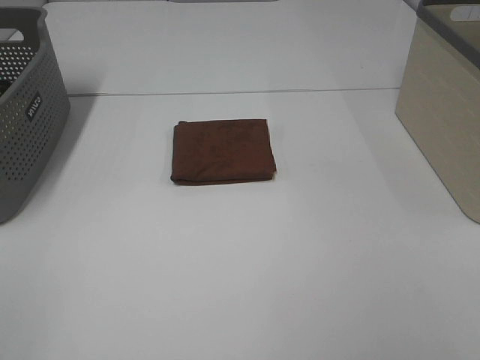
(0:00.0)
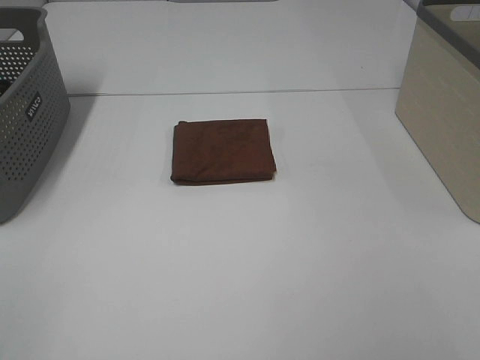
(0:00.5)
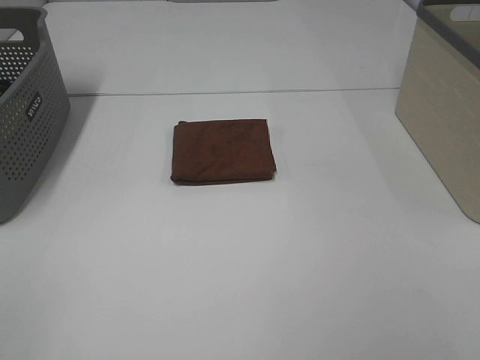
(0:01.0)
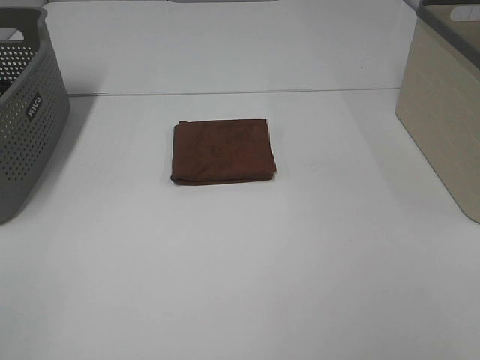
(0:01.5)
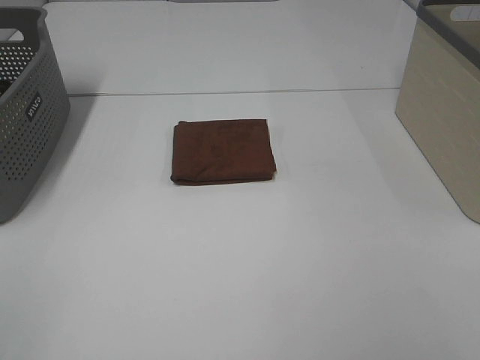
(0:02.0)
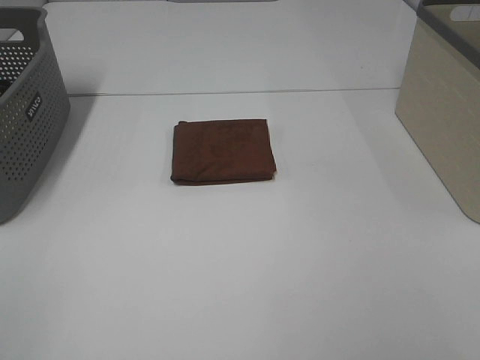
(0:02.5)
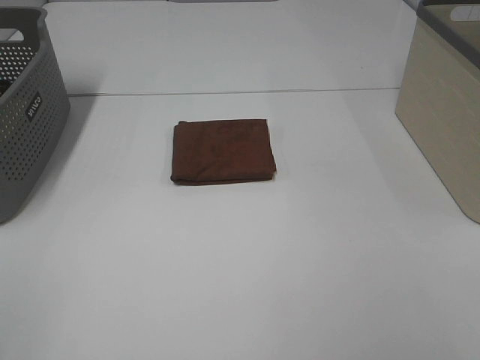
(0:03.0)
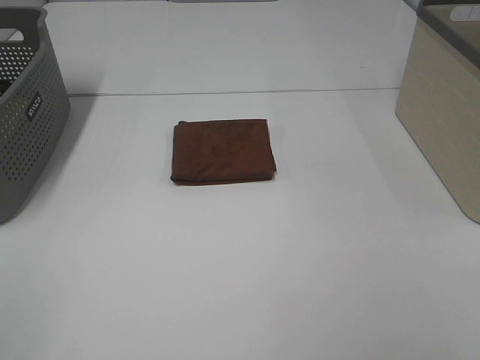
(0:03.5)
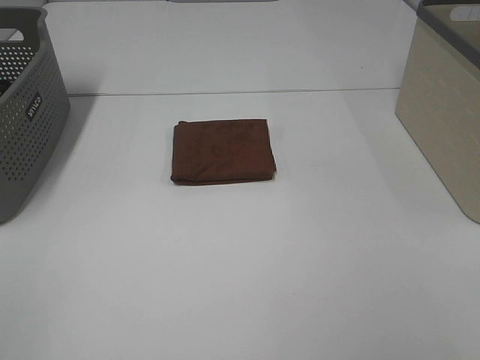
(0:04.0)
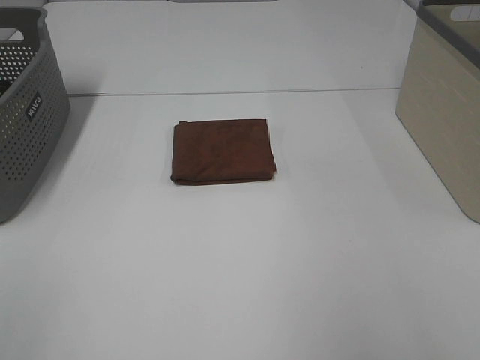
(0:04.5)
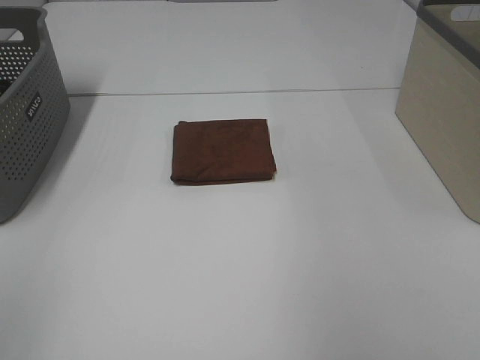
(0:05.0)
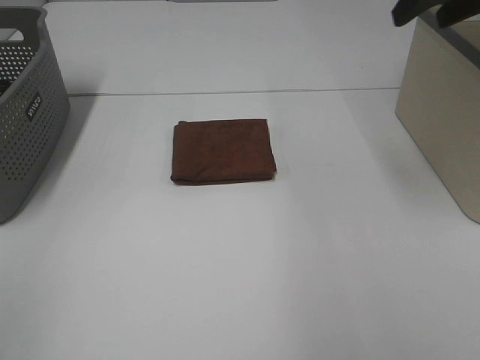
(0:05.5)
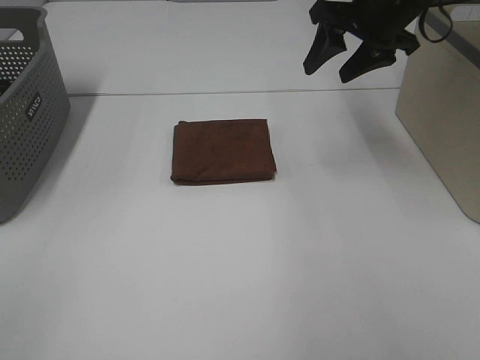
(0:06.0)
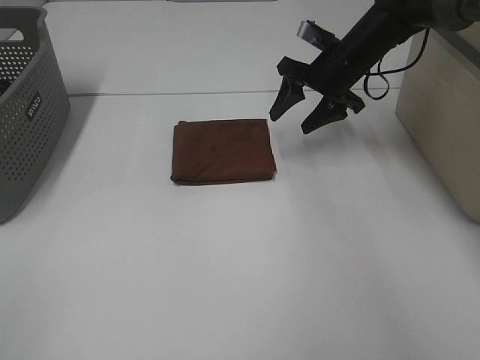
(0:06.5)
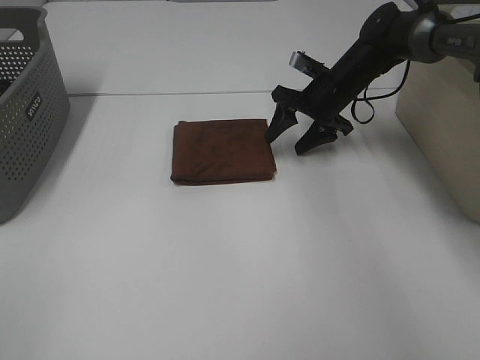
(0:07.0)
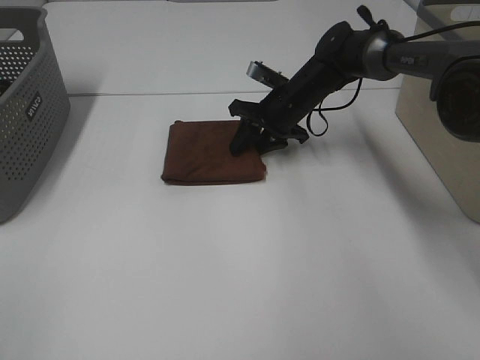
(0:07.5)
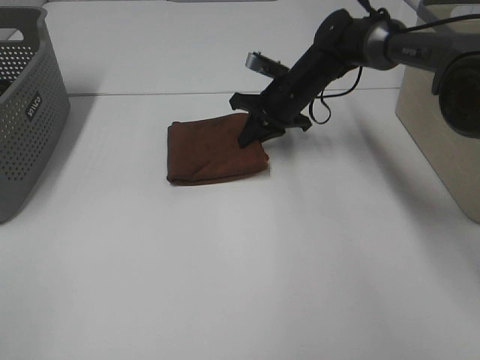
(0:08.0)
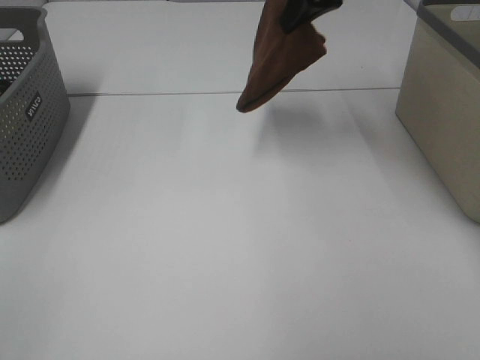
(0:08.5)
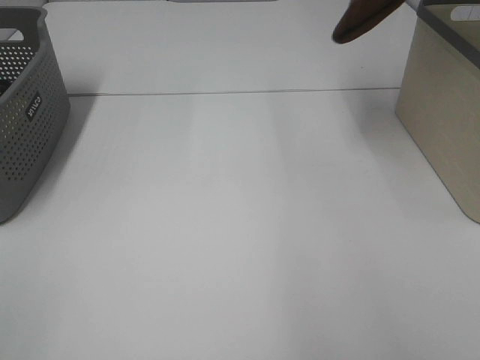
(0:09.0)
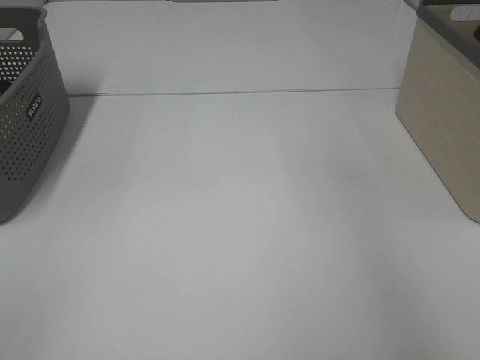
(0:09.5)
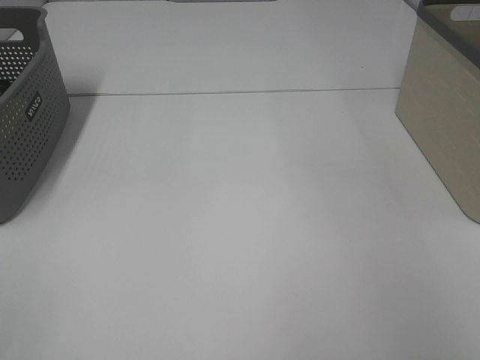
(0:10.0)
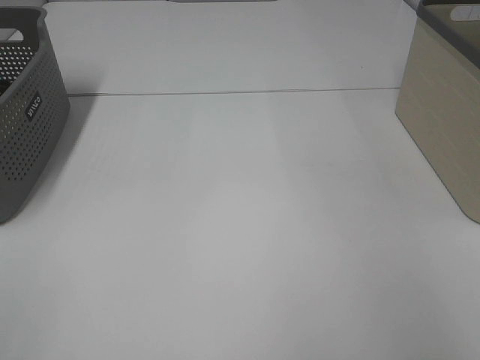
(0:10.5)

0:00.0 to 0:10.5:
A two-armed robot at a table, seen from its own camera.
Step, 0:00.0 to 0:07.5: Right hand: grab the folded brown towel.
Step, 0:08.0 to 0:10.0: Right hand: place the brown towel in right basket.
0:00.0 to 0:04.0: Both grippers stay put.
0:04.0 to 0:06.5: The right gripper travels forward by about 50 cm.
0:06.5 to 0:08.5: The right gripper moves upward, roughly 15 cm, and closes up.
0:08.5 to 0:10.5: The right gripper shifts about 30 cm to the right, and opens.

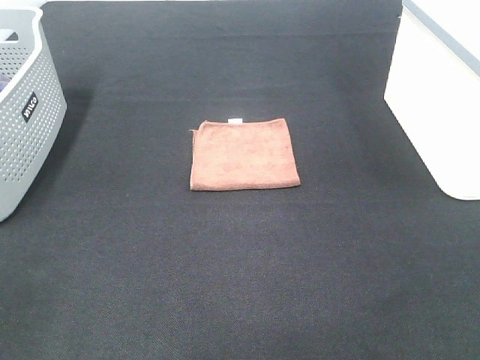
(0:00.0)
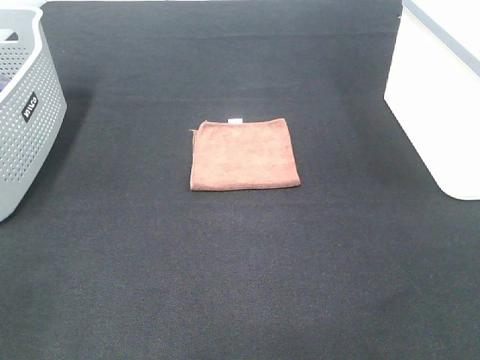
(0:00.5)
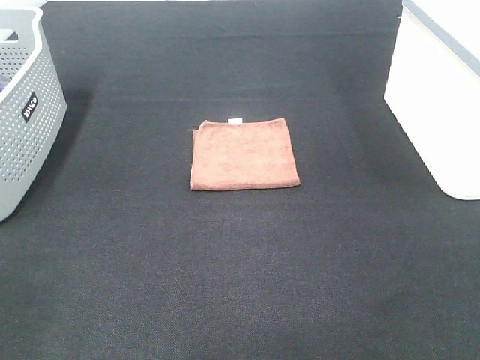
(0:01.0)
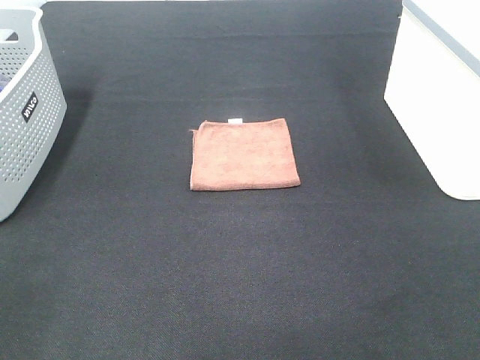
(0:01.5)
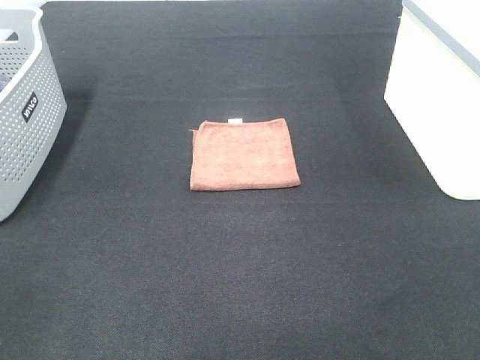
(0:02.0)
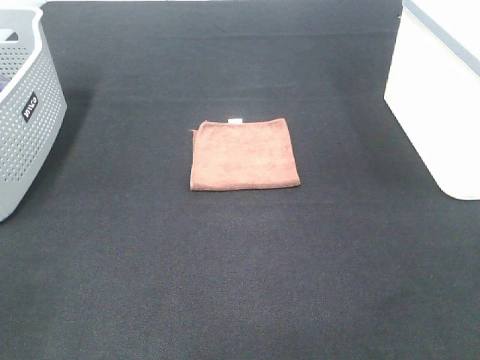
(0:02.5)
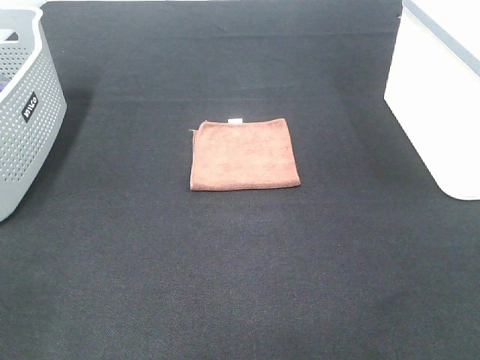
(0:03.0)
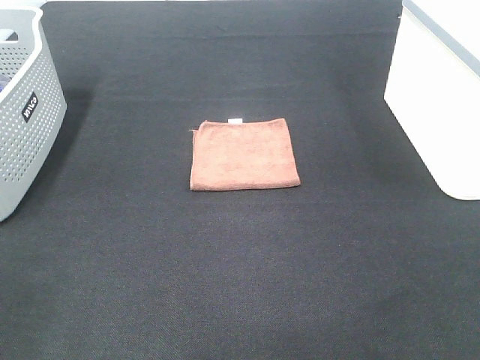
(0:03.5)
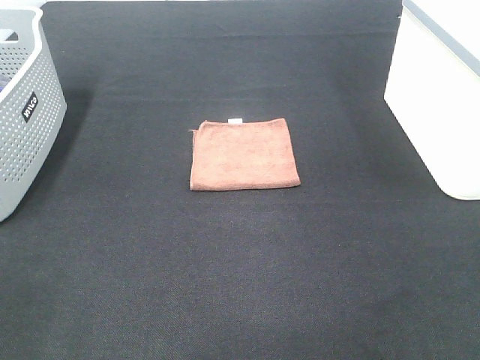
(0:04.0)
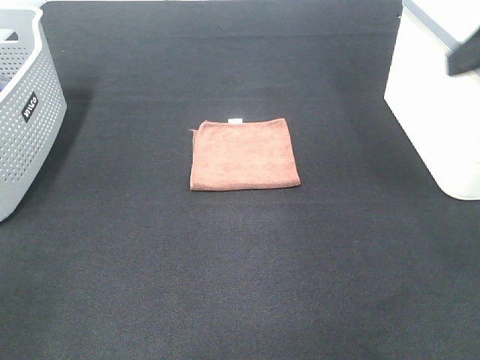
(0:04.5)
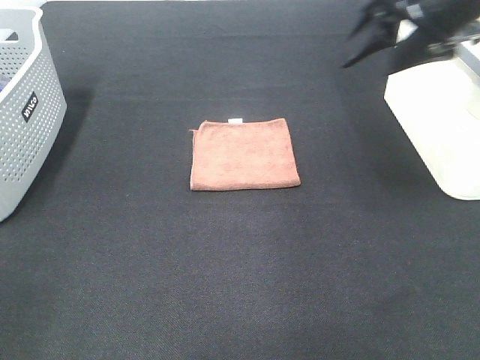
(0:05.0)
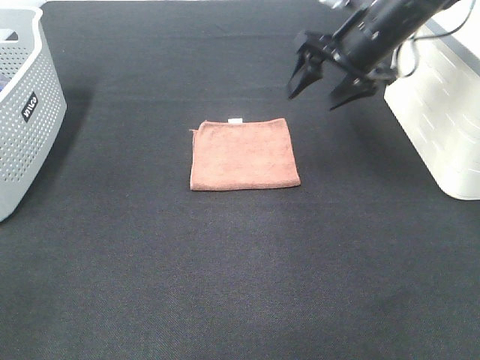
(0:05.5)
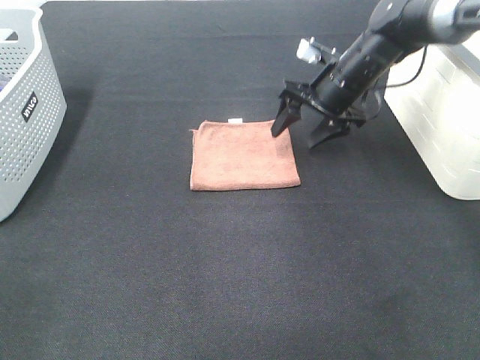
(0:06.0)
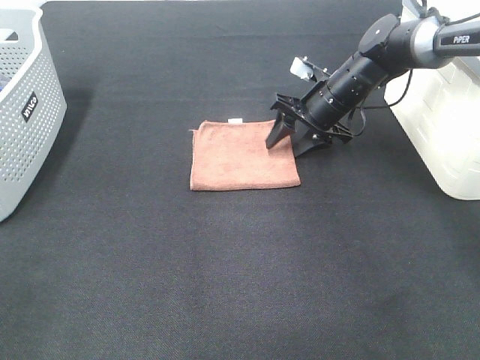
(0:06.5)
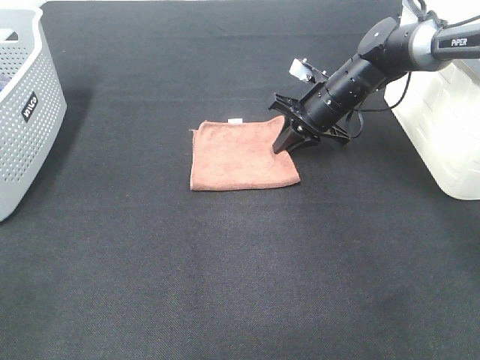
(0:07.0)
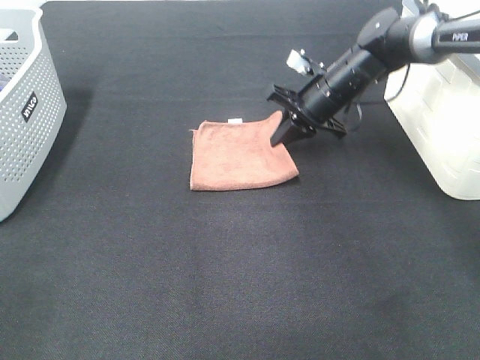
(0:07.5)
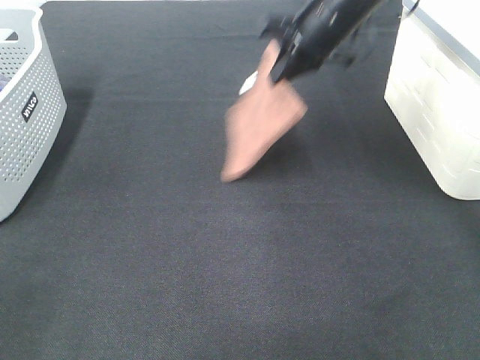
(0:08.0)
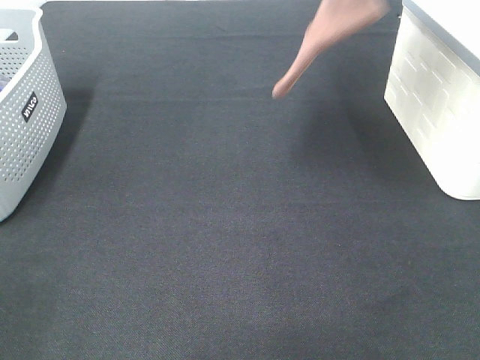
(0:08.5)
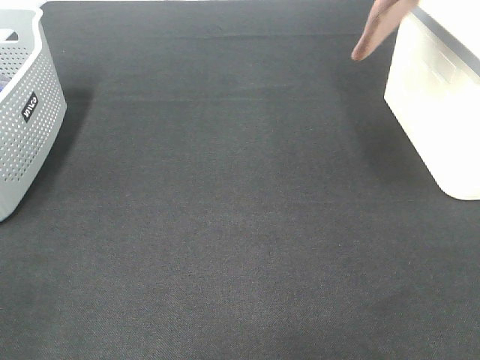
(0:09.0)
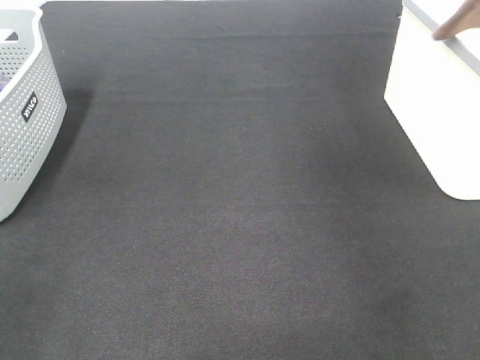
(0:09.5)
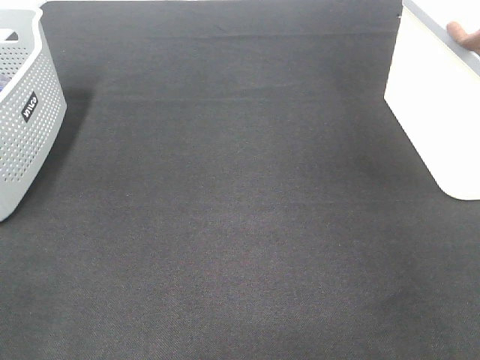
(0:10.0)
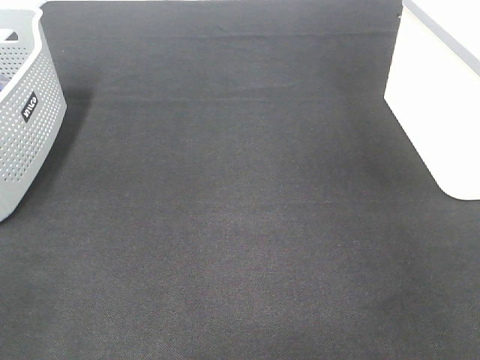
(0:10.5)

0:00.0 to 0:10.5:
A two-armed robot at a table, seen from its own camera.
Step, 0:00.0 to 0:07.0: Right hand: grab the folded brown towel.
0:00.0 to 0:02.0: The two grippers keep their place.
0:04.0 to 0:06.5: The right gripper heads forward and downward, covering roughly 50 cm.
0:06.5 to 0:08.5: The right gripper goes some 30 cm upward, and closes up.
0:08.5 to 0:10.5: The right gripper heads to the right, covering about 25 cm, and opens.

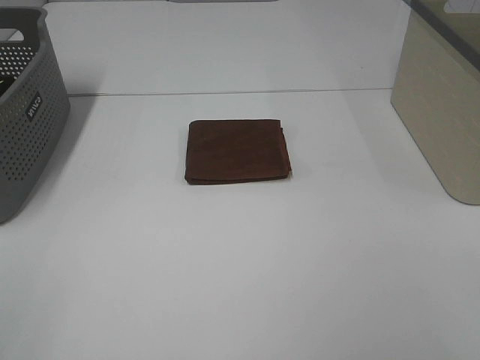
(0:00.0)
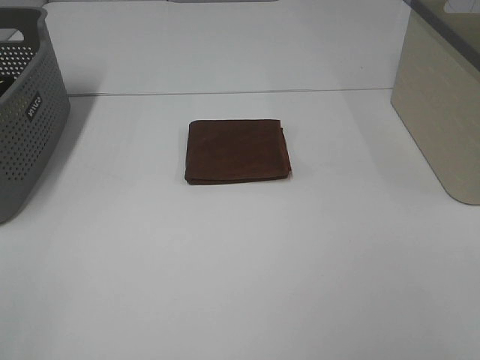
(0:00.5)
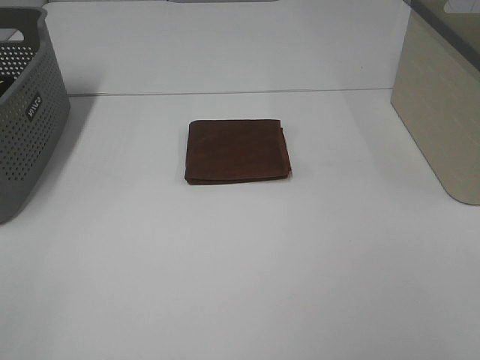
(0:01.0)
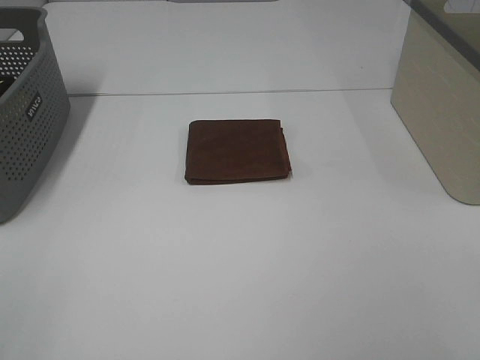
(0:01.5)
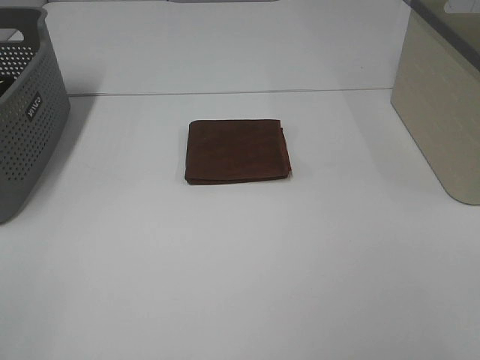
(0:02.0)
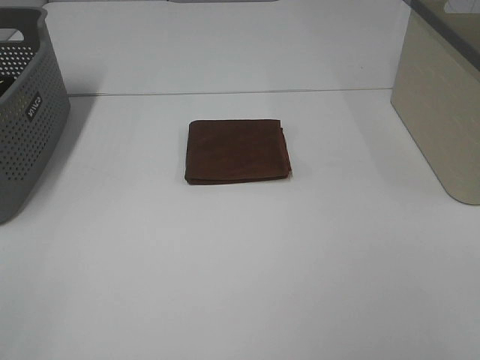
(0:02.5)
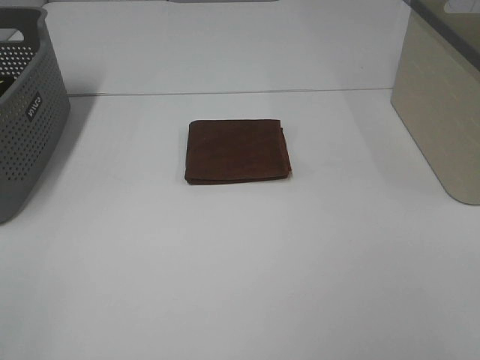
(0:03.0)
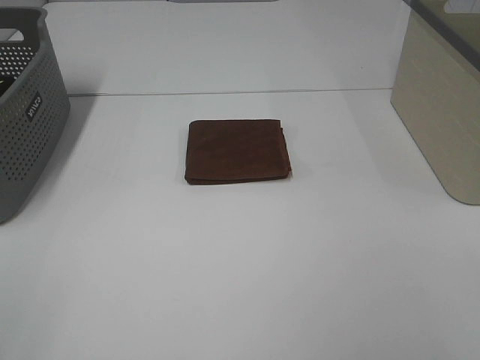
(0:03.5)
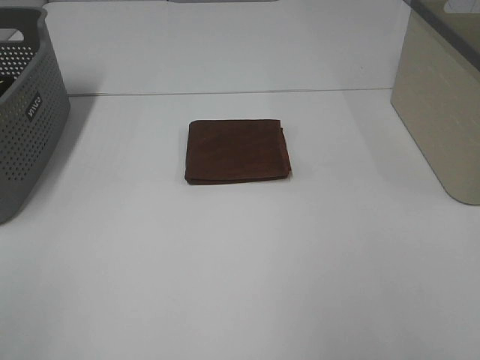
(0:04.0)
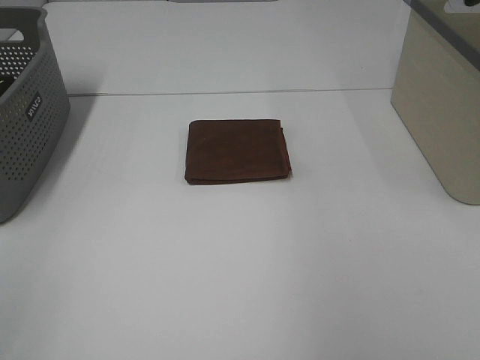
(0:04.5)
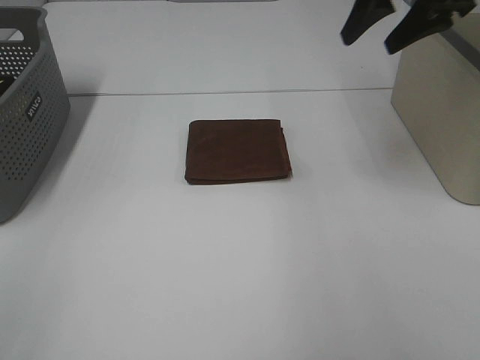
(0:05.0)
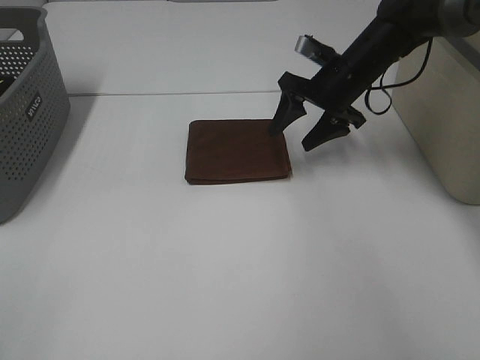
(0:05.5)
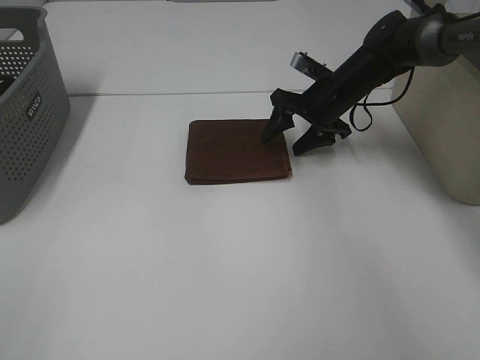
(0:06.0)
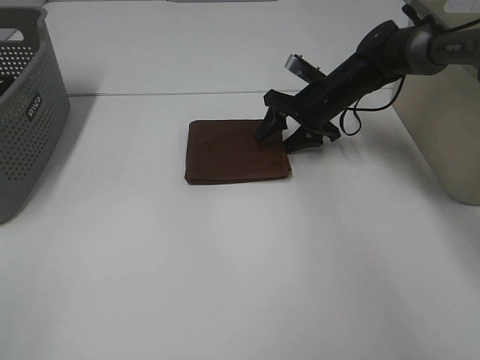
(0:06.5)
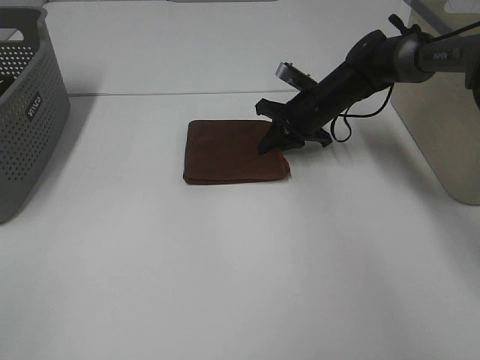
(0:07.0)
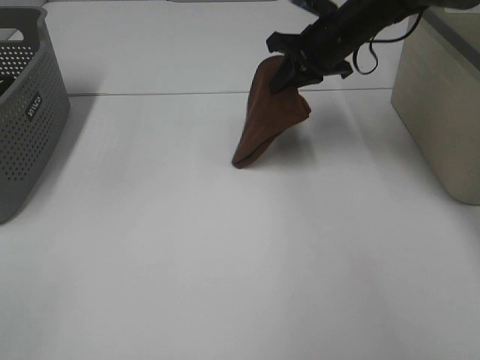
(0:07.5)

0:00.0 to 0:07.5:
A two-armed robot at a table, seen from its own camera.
Step, 0:00.0 to 0:07.0: Right hand: grab the folded brown towel.
0:00.0 to 0:02.0: The two grippers keep their place.
0:04.0 to 0:05.5: The right gripper is displaced forward and downward by approximately 40 cm.
0:05.5 to 0:07.5: The right gripper moves upward, approximately 5 cm, and closes up.
